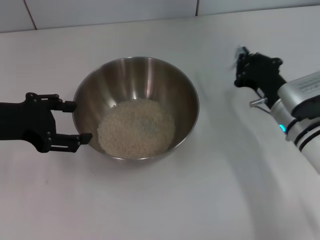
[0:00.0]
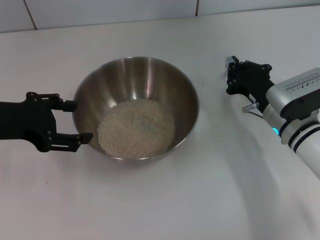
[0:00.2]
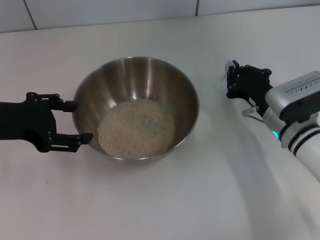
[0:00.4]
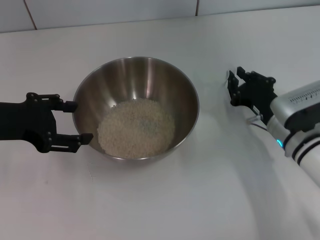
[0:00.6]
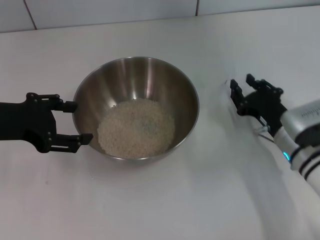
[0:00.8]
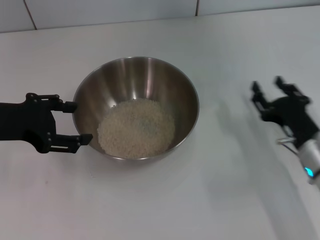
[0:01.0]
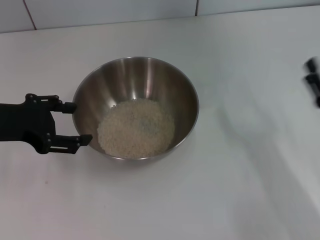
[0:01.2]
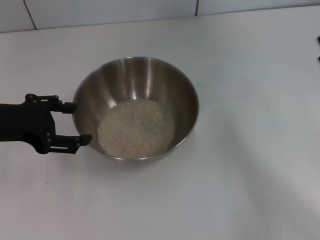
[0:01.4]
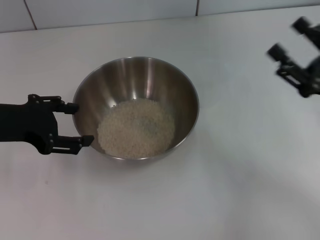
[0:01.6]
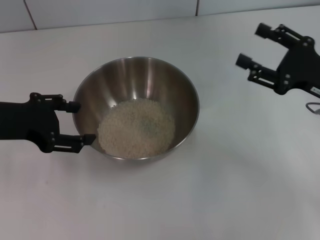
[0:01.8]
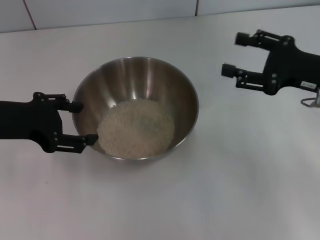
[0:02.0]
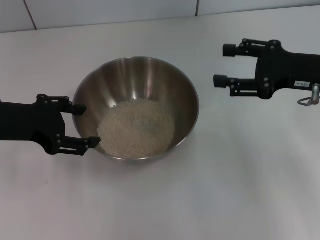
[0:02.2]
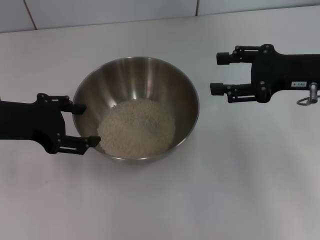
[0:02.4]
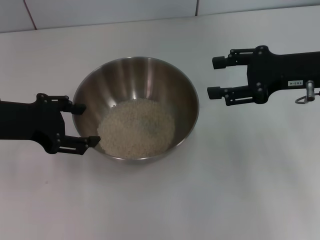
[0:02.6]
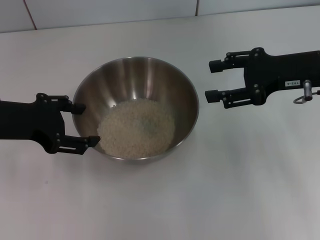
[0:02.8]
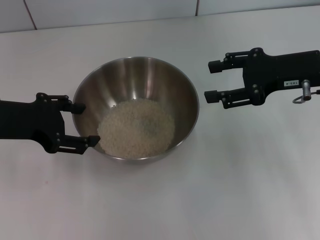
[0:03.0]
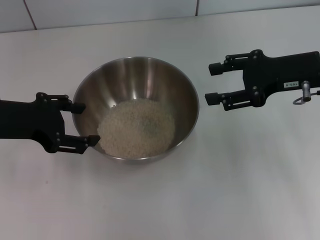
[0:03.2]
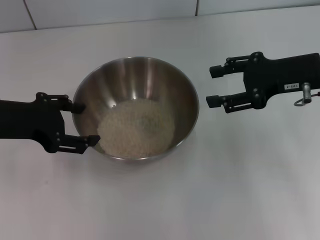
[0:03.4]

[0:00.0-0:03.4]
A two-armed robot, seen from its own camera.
Task of the whole recording: Place the bowl in the middle of the table with one hand and pour the rice from the grain cup into it with the other hand.
Step, 0:00.0 to 0:01.0: Place the cup on the table with the right gripper.
0:00.0 to 0:01.6: The right gripper shifts approximately 10 cm to the right, backward and upward, and opens.
0:01.6 to 0:03.4: The right gripper is displaced forward and upward by some 10 cm.
